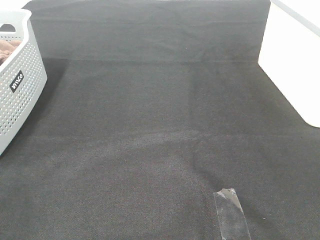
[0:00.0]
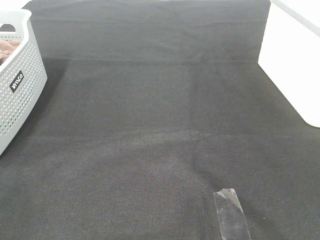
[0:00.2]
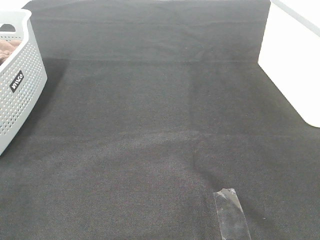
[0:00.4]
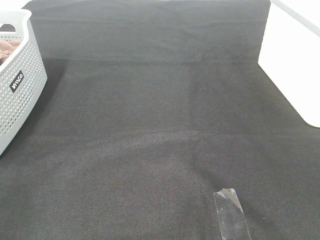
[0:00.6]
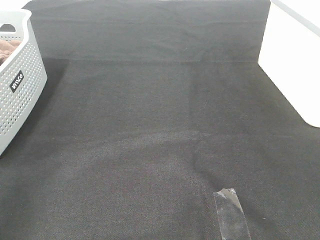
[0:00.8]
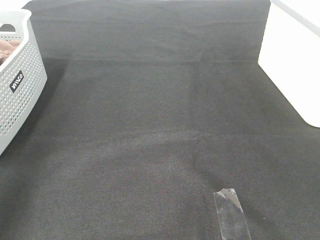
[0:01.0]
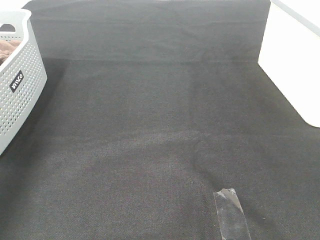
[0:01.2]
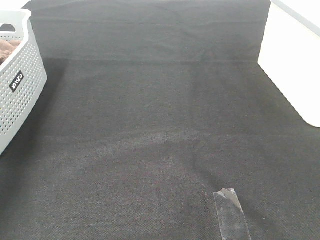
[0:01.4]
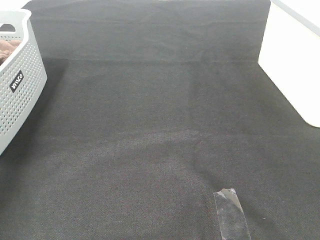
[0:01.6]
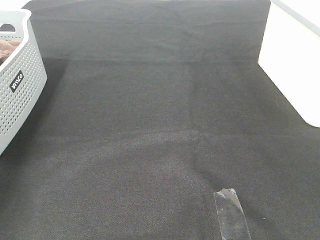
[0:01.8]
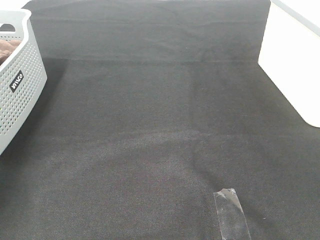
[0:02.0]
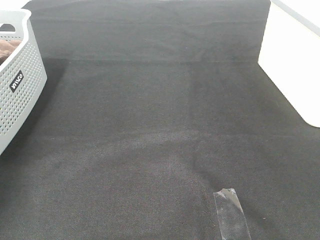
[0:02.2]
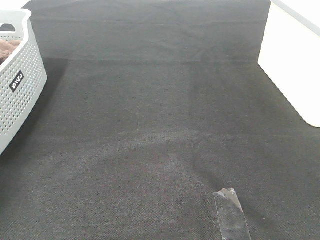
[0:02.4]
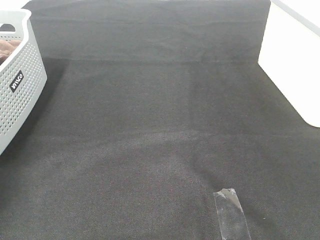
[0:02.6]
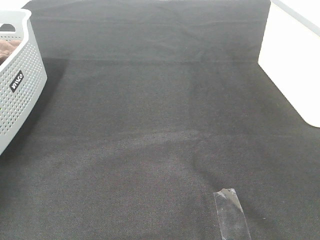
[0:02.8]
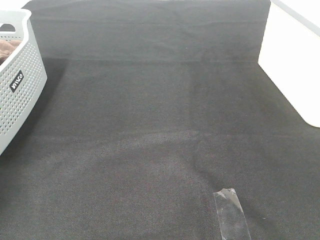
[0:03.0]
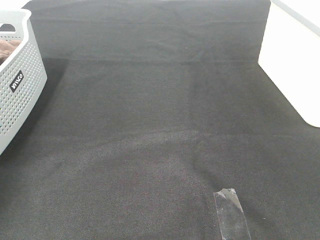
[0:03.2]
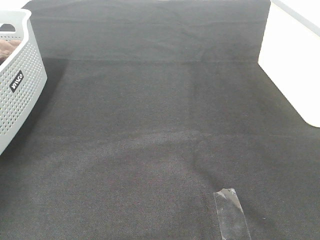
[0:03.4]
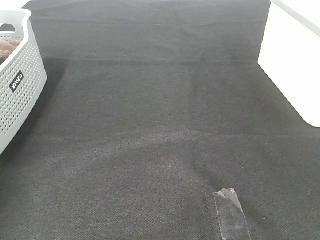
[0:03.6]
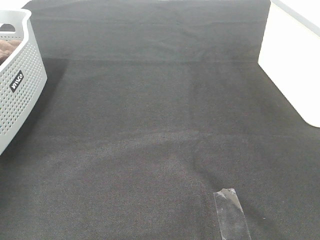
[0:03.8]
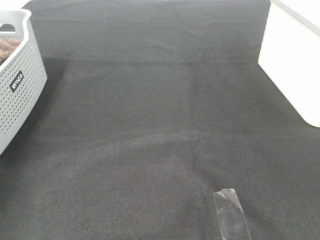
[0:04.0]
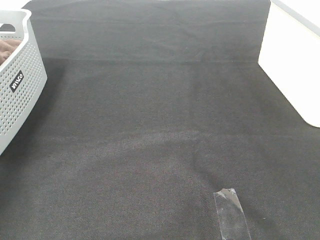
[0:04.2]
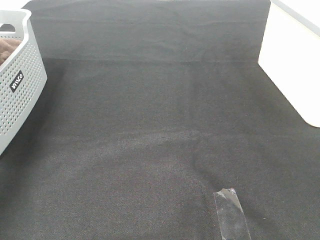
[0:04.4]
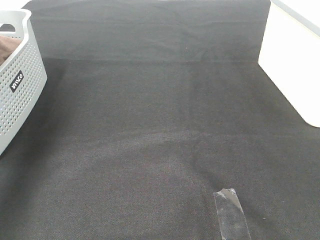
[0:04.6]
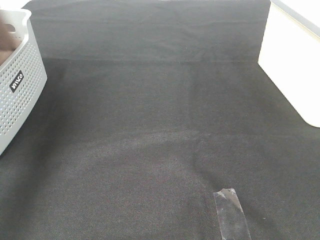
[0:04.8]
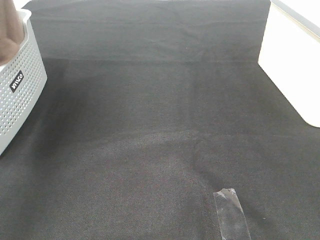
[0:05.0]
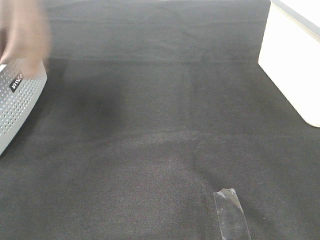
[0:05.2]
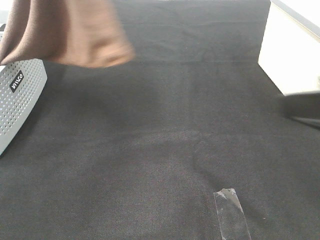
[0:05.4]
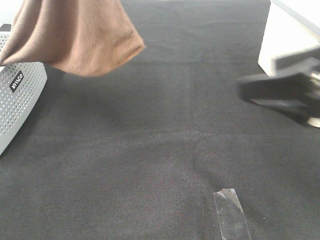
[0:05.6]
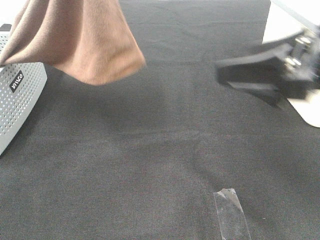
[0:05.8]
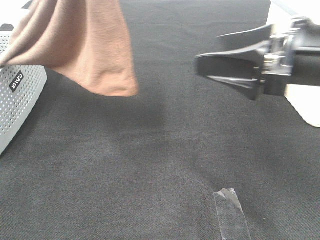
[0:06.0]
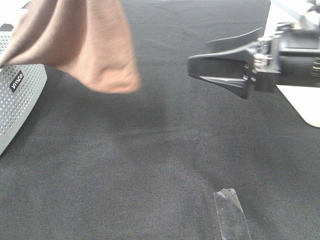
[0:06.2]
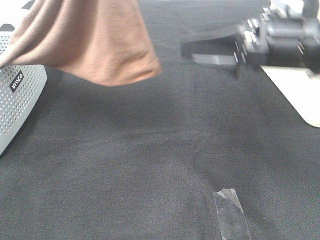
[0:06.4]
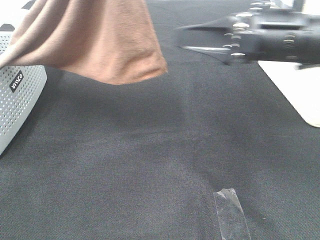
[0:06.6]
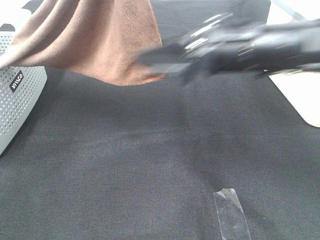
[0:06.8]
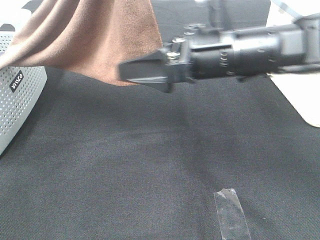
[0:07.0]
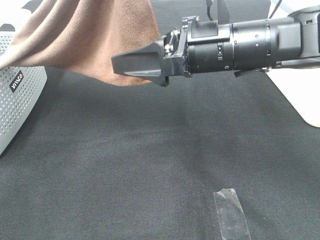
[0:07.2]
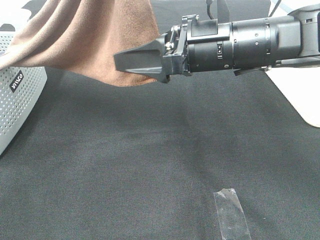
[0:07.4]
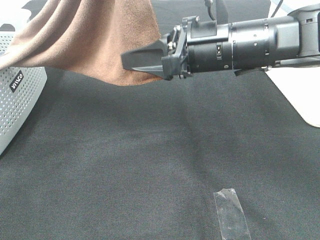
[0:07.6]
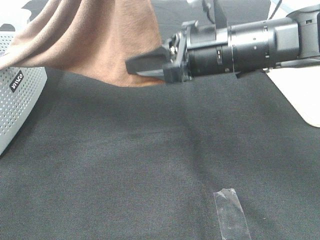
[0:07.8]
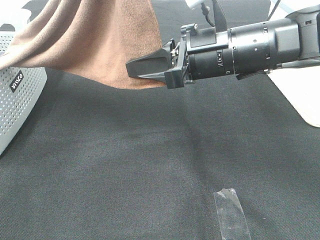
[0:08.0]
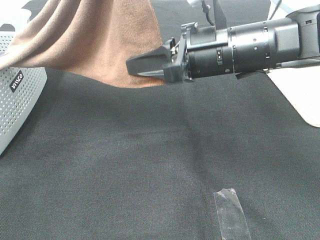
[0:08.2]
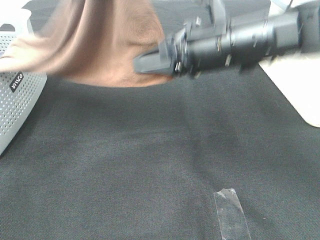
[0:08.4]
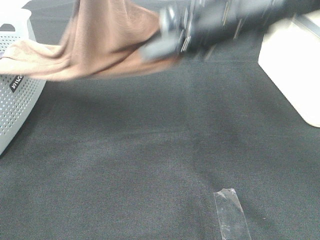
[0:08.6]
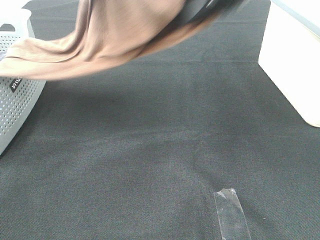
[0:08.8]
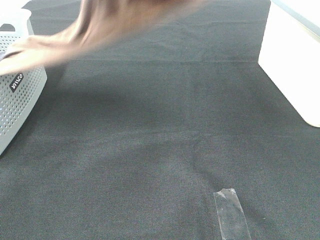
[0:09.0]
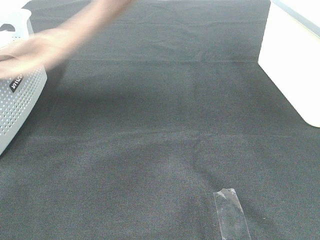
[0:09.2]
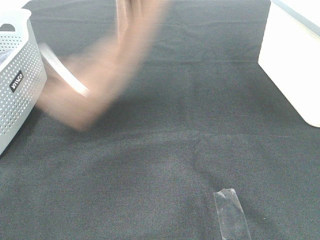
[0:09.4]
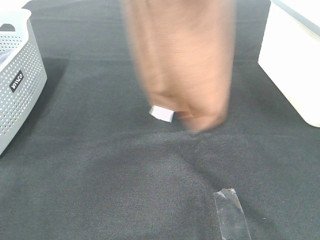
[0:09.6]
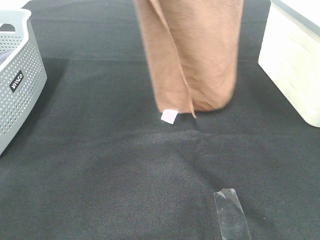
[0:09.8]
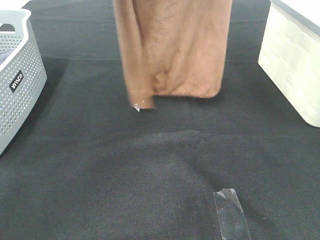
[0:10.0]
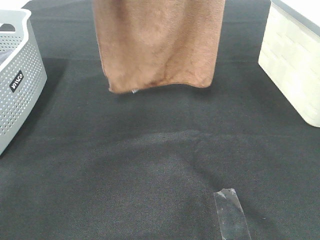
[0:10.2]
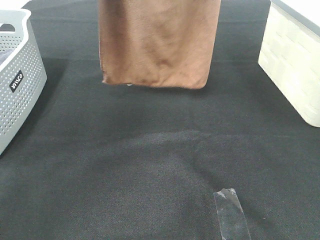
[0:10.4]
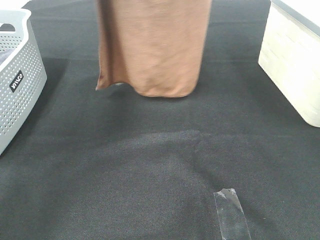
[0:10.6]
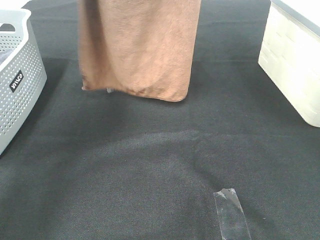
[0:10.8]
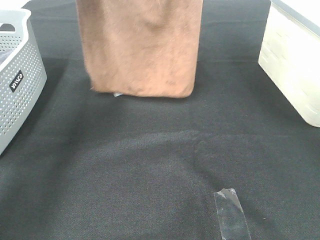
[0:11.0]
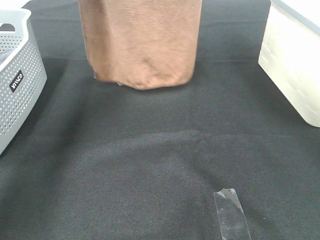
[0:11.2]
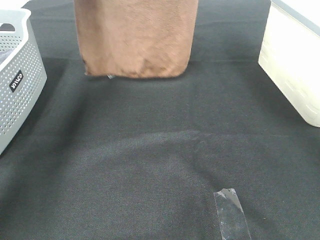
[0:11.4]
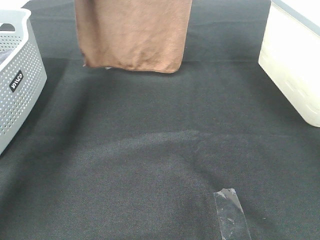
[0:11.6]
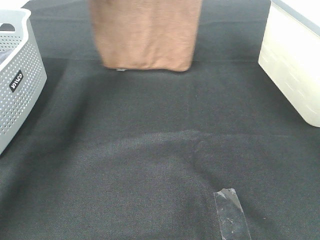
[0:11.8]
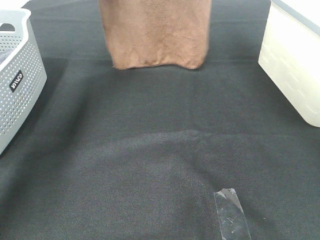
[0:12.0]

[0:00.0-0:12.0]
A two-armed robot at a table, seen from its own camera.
Task of the whole recording: Remove the towel and place it.
Step, 0:05.0 to 0:07.6: Right hand: grab a corner of the brown towel and straighten it.
0:00.0 to 0:01.6: The left gripper moves forward, approximately 40 cm.
0:03.0 to 0:04.4: The left gripper shifts some 25 cm upward.
0:04.4 to 0:06.0: The left gripper heads to the right, covering about 25 cm. Meanwhile the right gripper heads forward and to the left, covering approximately 25 cm.
0:06.0 to 0:07.6: The right gripper is displaced to the left and forward by approximately 10 cm, and closes.
0:07.6 to 0:09.0: The right gripper is displaced upward by some 20 cm, and closes.
0:09.0 to 0:10.4: The left gripper heads forward, covering some 5 cm. Meanwhile the right gripper goes some 10 cm upward and forward.
0:10.4 to 0:12.0: The two grippers go some 15 cm forward and downward.

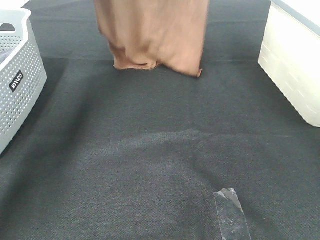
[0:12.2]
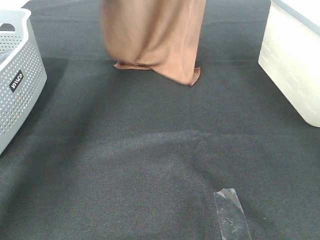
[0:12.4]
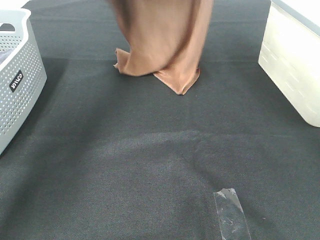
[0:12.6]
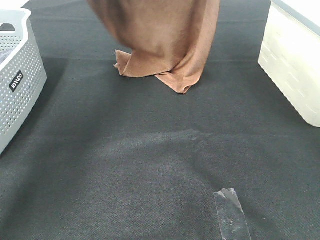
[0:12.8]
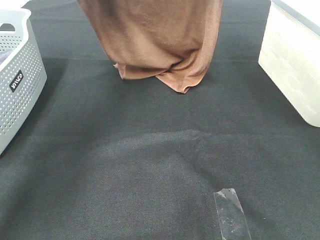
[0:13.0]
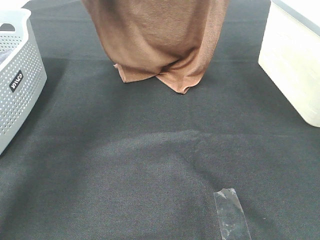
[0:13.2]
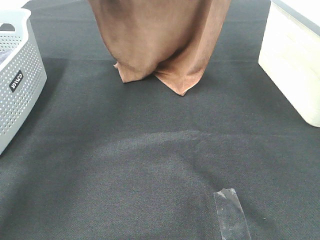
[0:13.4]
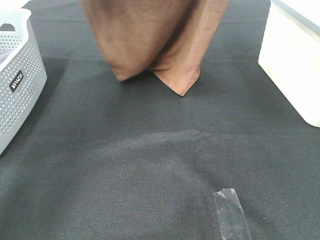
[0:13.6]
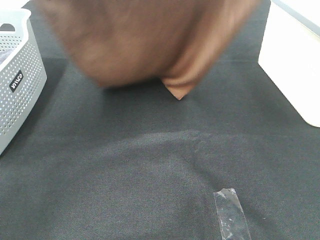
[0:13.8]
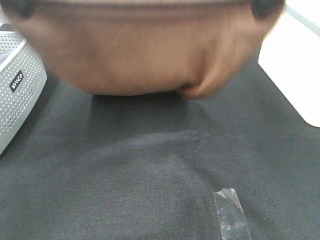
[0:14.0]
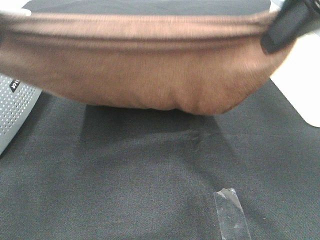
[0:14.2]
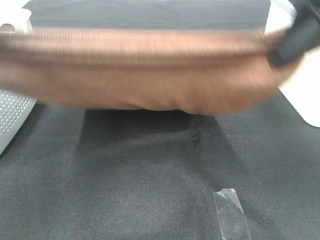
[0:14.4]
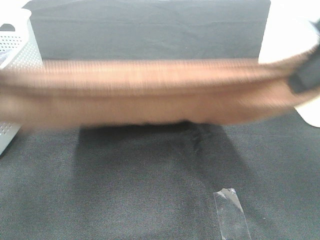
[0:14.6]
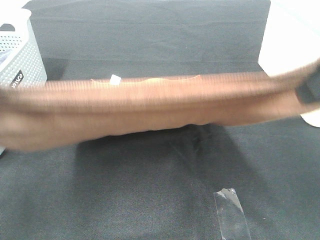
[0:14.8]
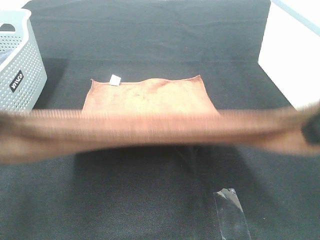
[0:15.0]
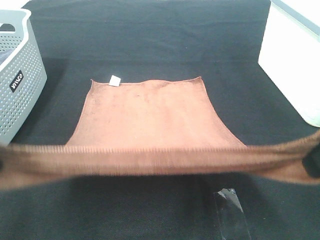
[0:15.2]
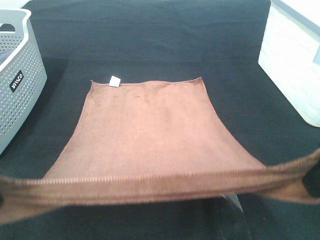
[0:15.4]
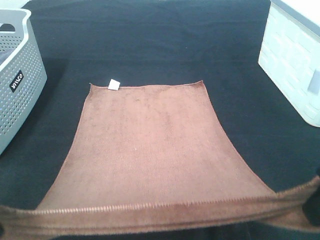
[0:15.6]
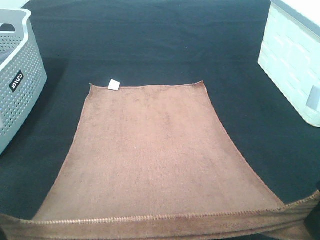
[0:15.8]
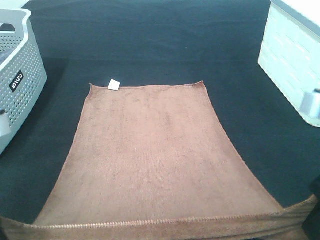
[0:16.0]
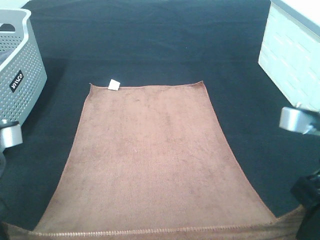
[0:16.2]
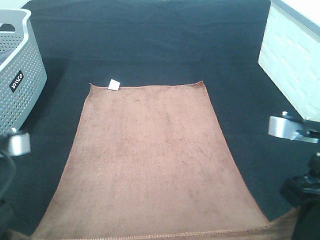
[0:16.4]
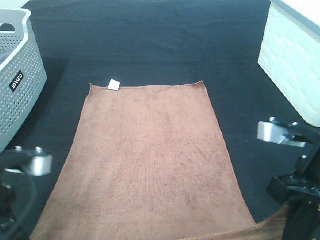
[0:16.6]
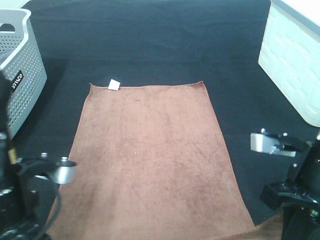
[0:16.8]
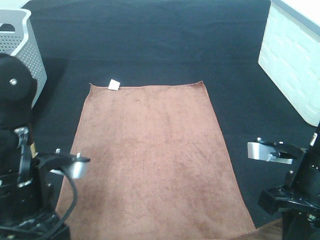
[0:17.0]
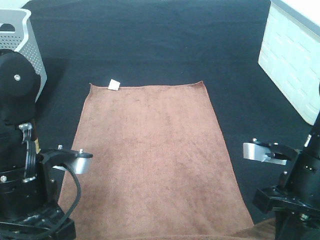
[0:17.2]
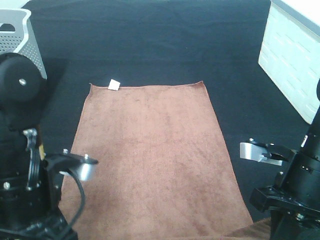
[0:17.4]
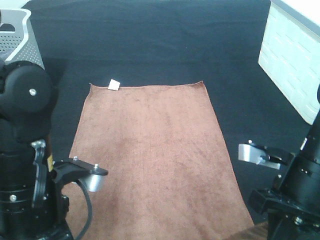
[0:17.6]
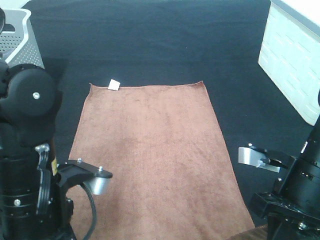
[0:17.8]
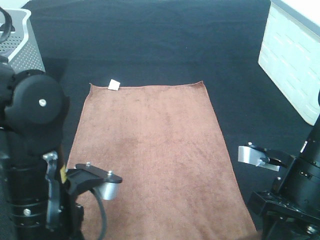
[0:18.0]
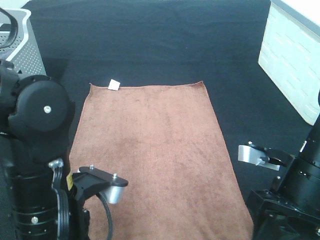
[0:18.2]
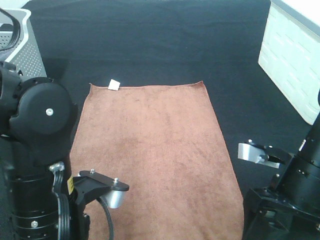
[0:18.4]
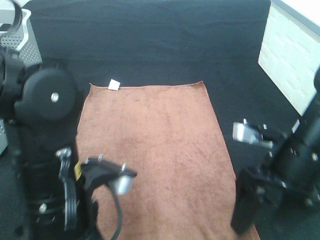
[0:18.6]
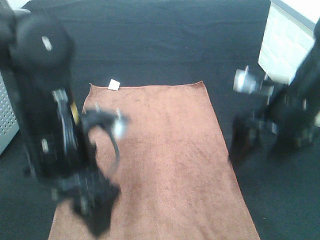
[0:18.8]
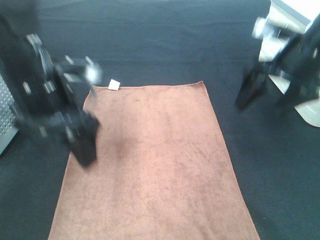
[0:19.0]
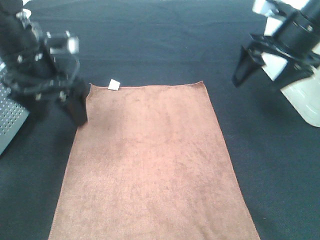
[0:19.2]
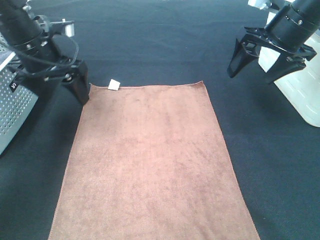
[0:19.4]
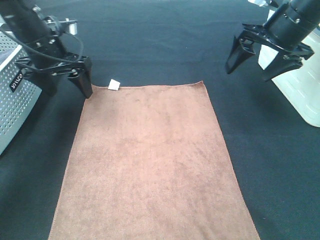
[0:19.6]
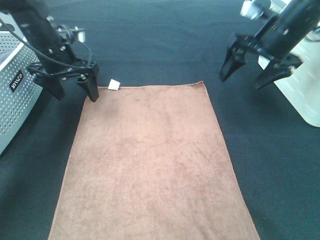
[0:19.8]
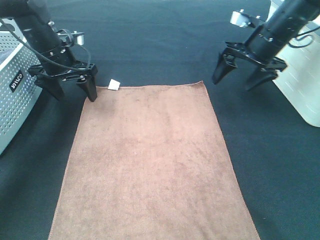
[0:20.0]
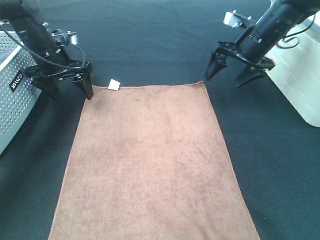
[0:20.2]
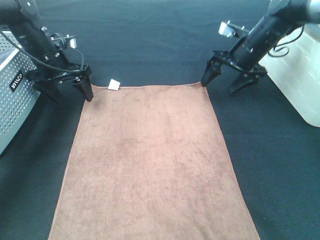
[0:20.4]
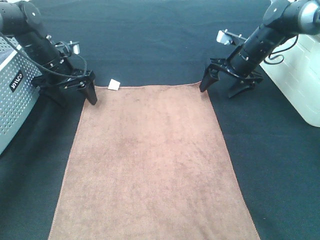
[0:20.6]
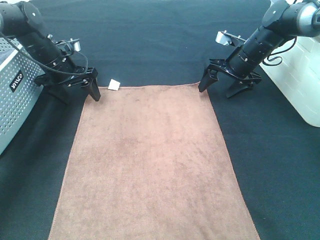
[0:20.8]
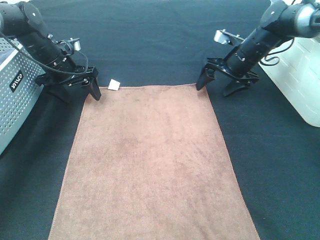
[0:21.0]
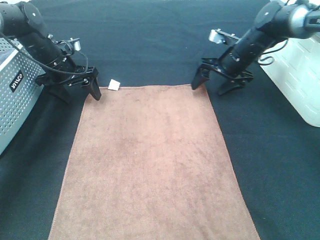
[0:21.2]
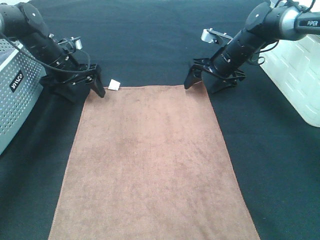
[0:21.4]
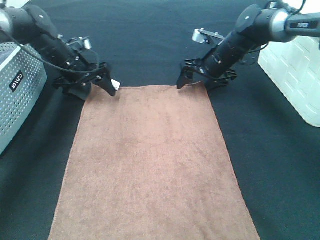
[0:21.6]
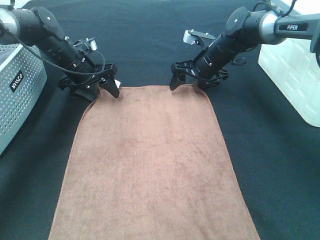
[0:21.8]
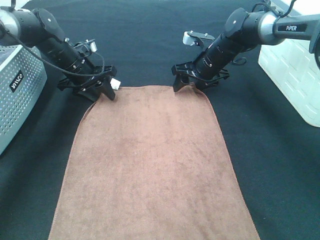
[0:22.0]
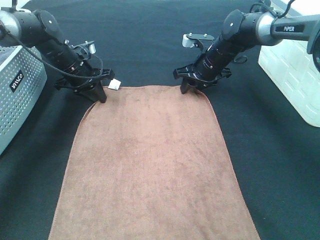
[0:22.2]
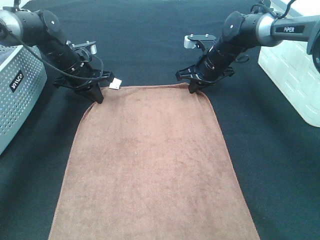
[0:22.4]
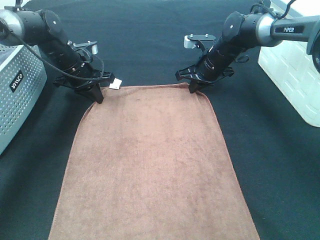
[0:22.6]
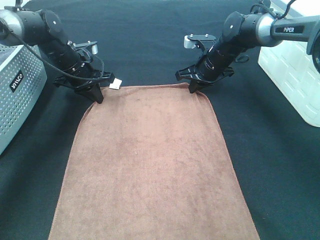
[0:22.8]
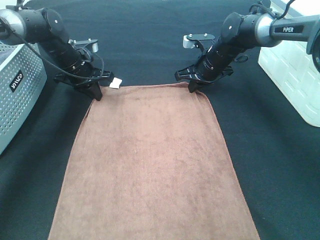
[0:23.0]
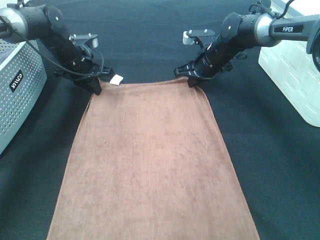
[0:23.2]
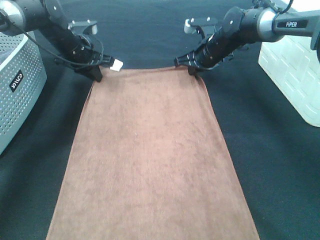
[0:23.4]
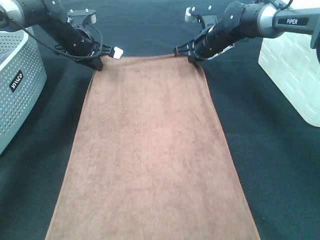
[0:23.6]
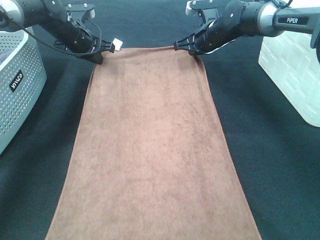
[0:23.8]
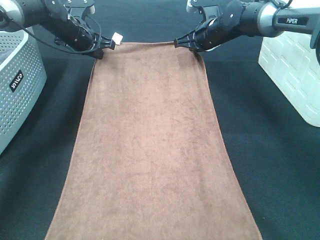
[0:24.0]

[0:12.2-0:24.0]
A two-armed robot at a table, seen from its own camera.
Task of the whole recording: Remove the towel and place it.
Step, 0:14.2 to 0:21.4: Left hand:adjust the brown towel.
Step, 0:14.2 to 0:21.6: Right hand:adjust the brown towel.
0:12.2 to 0:13.6: Both grippers move backward, about 15 cm.
0:13.6 to 0:15.2: The grippers both shift backward and downward by approximately 25 cm.
0:15.2 to 0:16.6: Both grippers move downward, approximately 10 cm.
0:16.6 to 0:18.2: The right gripper opens its fingers; the left gripper travels to the right by roughly 10 cm, and opens.
0:18.2 to 0:19.6: The right gripper shifts about 25 cm forward and upward. Meanwhile the left gripper shifts roughly 30 cm forward.
0:19.6 to 0:21.0: The right gripper is displaced downward and forward by about 15 cm. Meanwhile the left gripper is displaced downward and forward by about 10 cm.
0:21.0 to 0:22.6: The left gripper closes, while the right gripper shifts some 5 cm to the left, and closes its fingers.
0:22.6 to 0:24.0: The right gripper goes roughly 5 cm upward. Meanwhile the left gripper heads upward and forward, covering approximately 10 cm.
